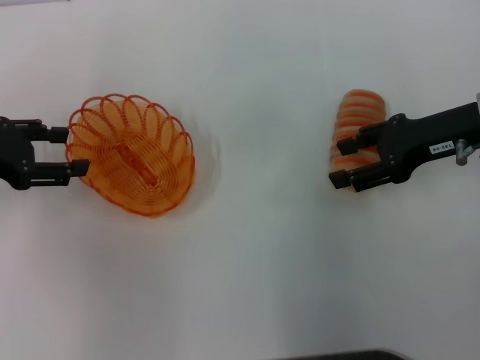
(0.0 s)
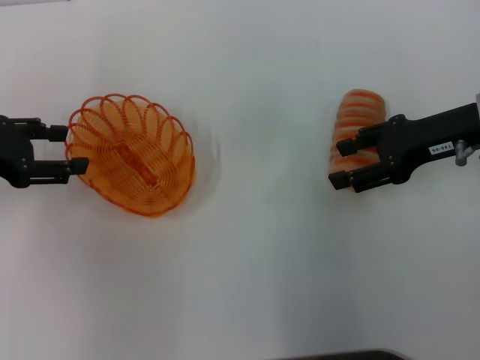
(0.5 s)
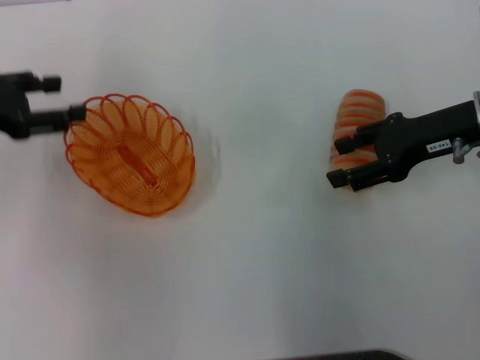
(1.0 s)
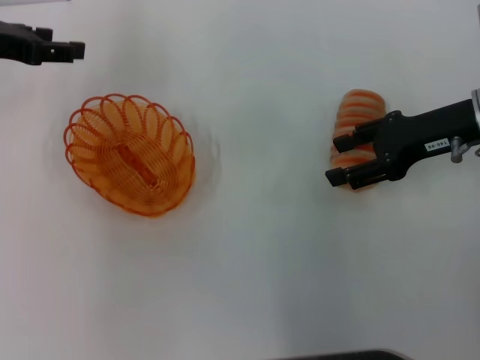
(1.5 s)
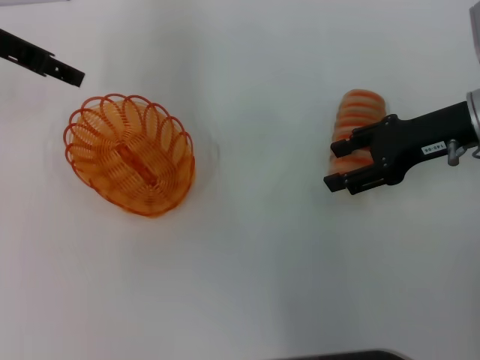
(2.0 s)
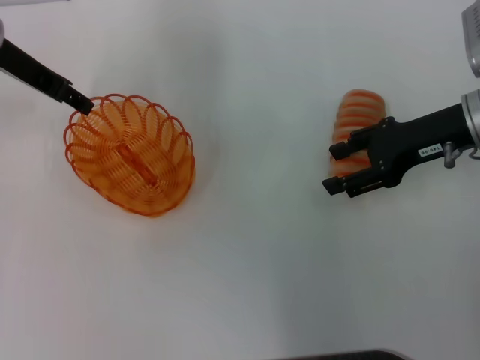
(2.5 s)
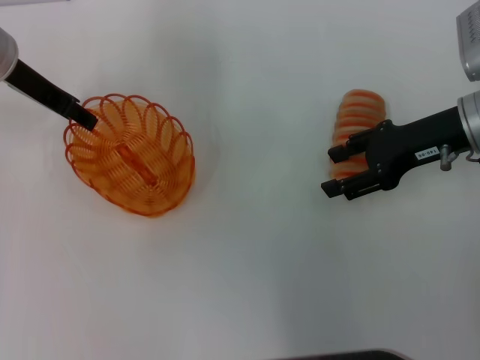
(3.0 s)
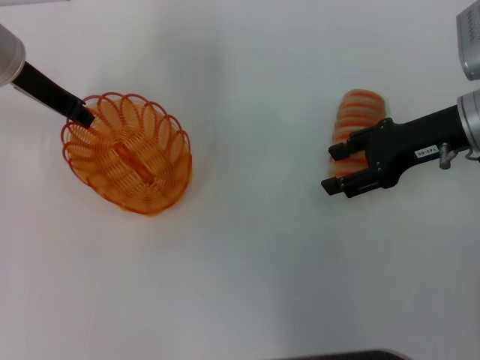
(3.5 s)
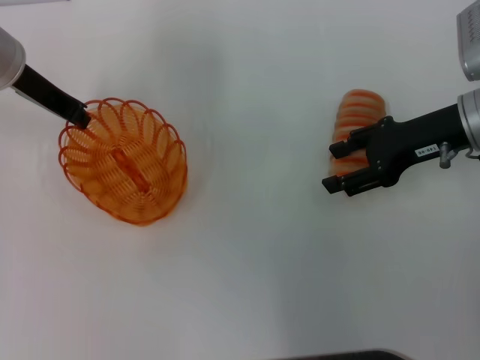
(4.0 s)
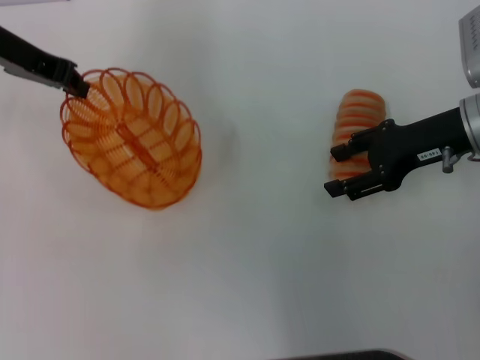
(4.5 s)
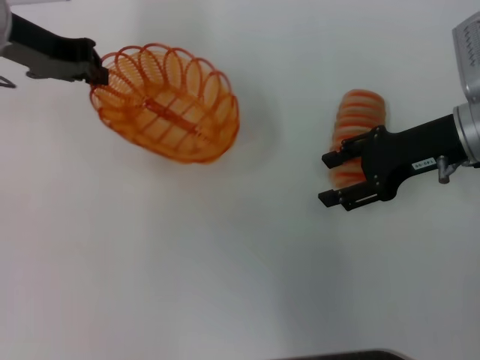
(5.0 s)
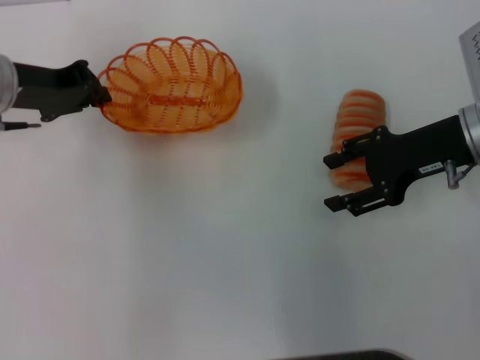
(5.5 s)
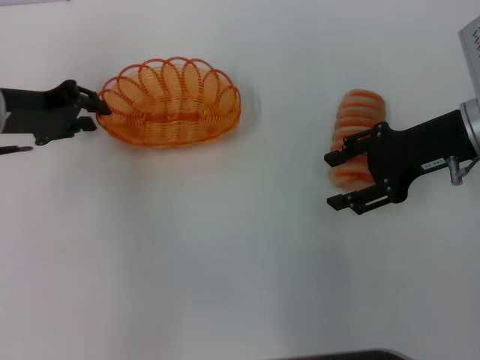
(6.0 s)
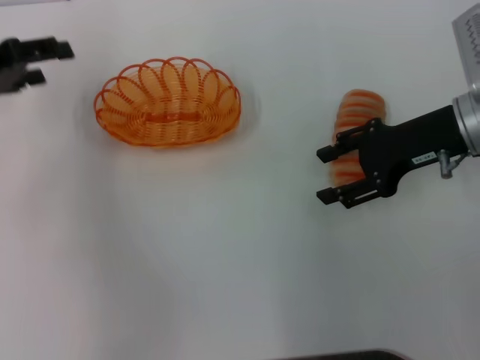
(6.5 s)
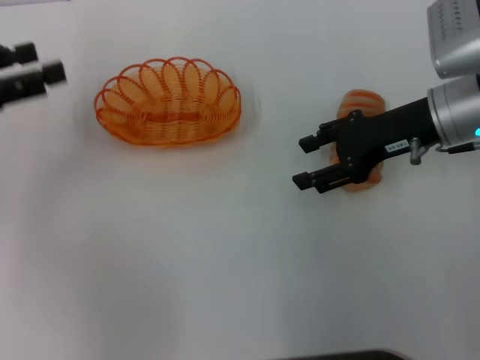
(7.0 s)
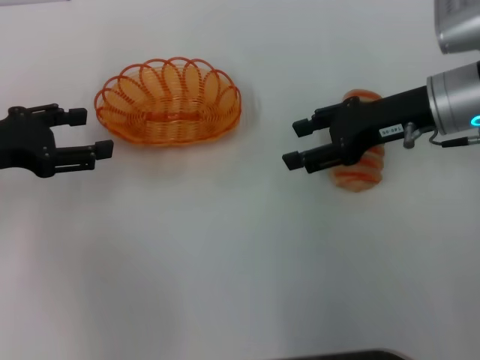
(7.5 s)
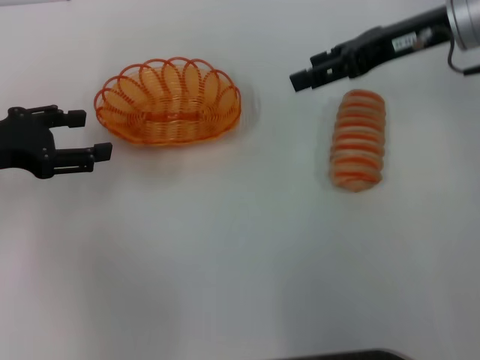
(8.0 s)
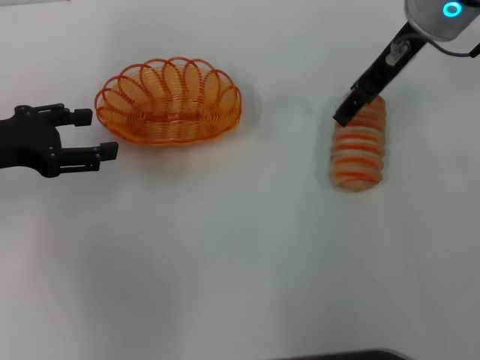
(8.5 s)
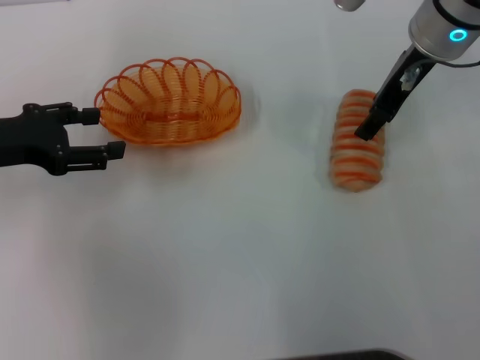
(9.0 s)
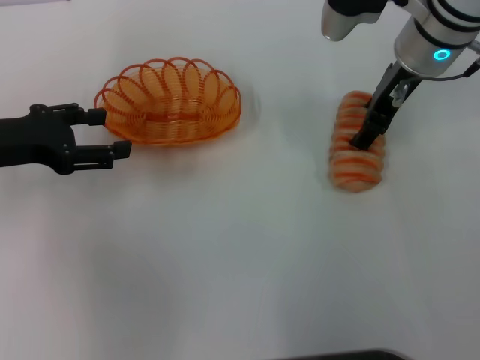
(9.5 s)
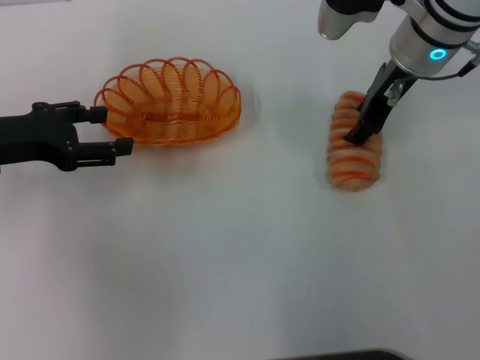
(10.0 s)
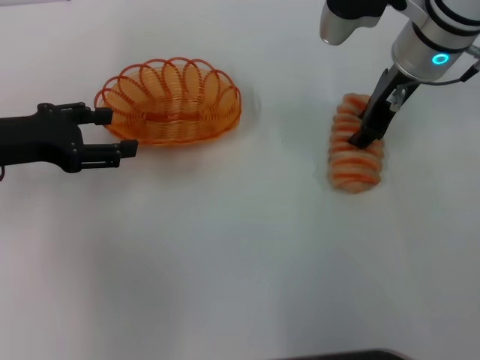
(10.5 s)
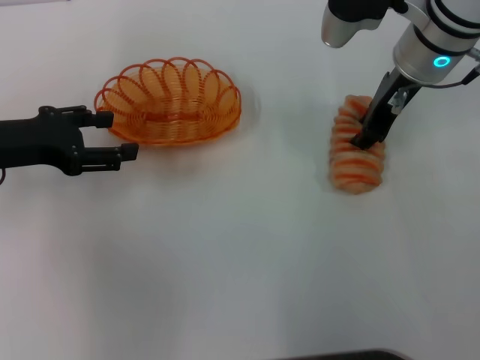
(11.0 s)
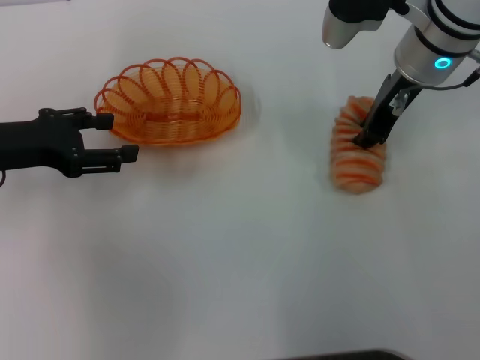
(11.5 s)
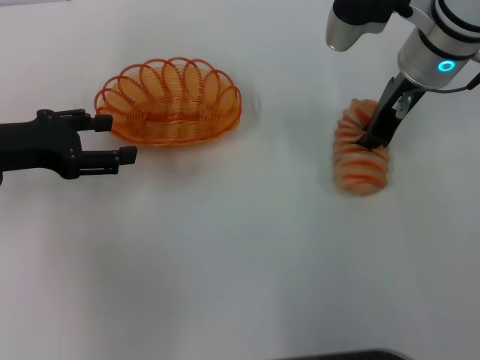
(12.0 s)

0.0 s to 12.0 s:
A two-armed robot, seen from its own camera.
Step, 0.0 to 4.5 s: Pick up the basket with the left gripper.
Step, 5.0 to 6.0 s: Place the basket in the center of view with the left gripper.
0.0 to 2.0 s: The left gripper shifts about 15 cm forward, upward and to the right.
2.0 to 4.0 s: The left gripper changes place by roughly 5 cm, and closes.
4.0 to 6.0 s: The left gripper shifts approximately 5 cm backward.
6.0 to 8.0 s: The right gripper heads upward and forward, covering about 10 cm. The left gripper is displaced backward by roughly 5 cm, and opens.
8.0 to 10.0 s: The right gripper travels to the left by some 5 cm.
10.0 to 12.0 s: The right gripper closes up.

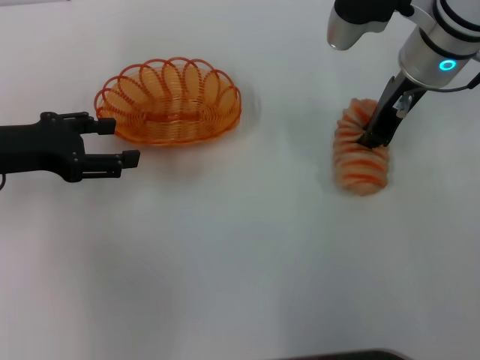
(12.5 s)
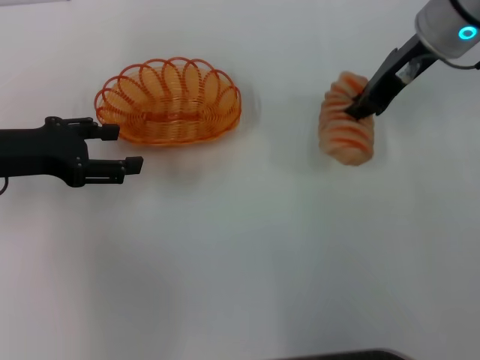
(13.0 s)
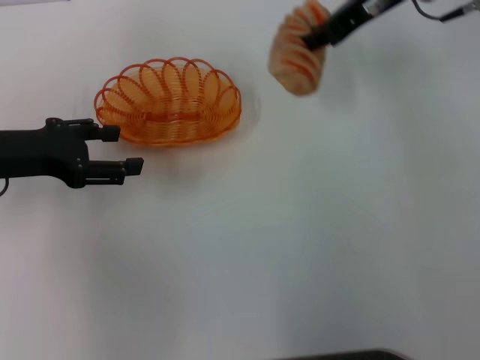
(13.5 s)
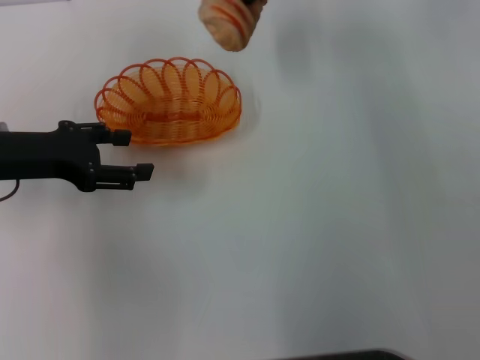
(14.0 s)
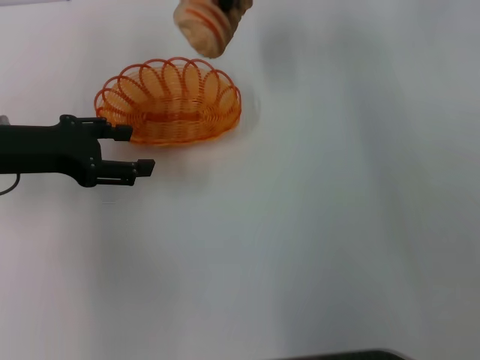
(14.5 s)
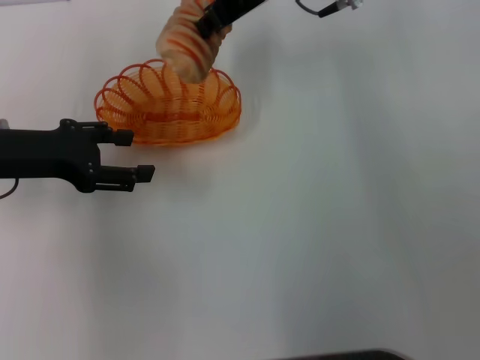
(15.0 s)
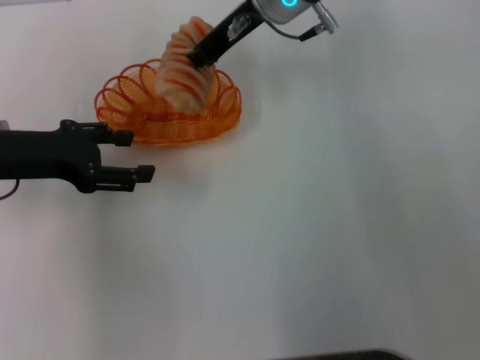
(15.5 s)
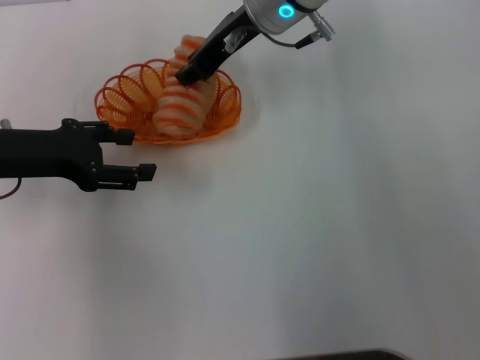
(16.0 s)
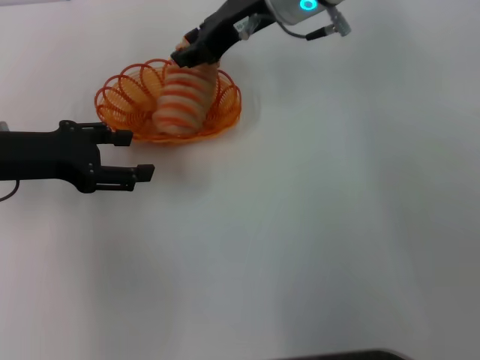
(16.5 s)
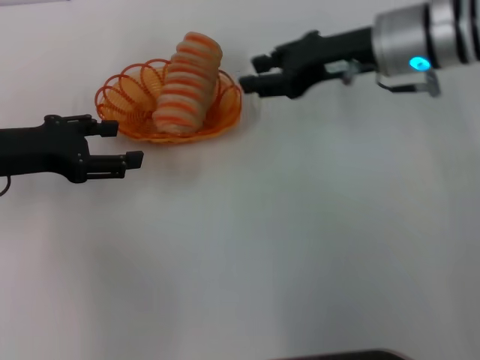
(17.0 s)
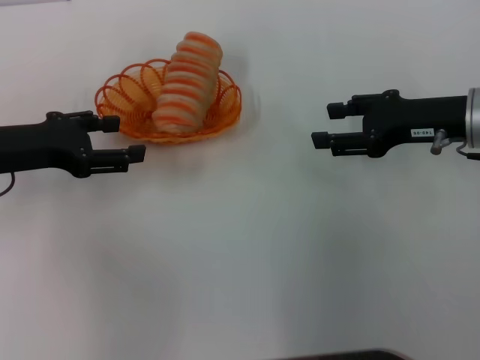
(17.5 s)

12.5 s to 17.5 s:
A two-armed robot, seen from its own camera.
Step, 13.0 to 16.5 s: Place the long bread into the basket with the right gripper.
12.5 to 15.0 s: The right gripper heads to the left and upward, covering approximately 10 cm.
15.0 to 17.5 s: The right gripper heads to the right, backward and downward, covering some 25 cm, and opens its fingers.

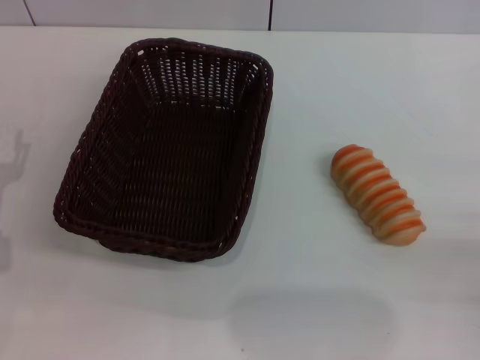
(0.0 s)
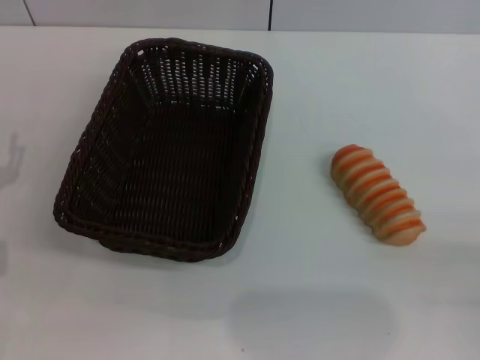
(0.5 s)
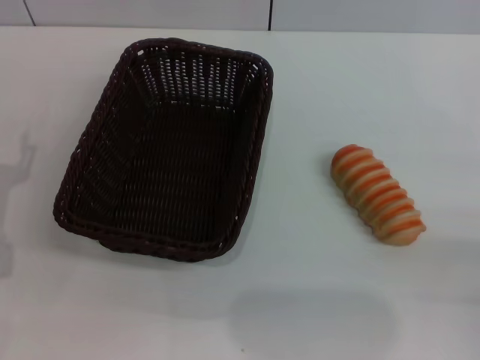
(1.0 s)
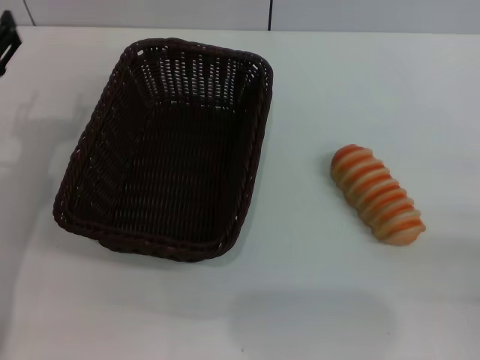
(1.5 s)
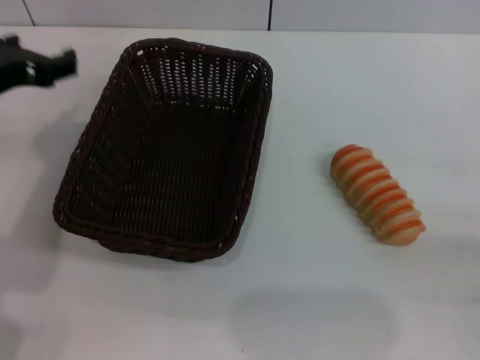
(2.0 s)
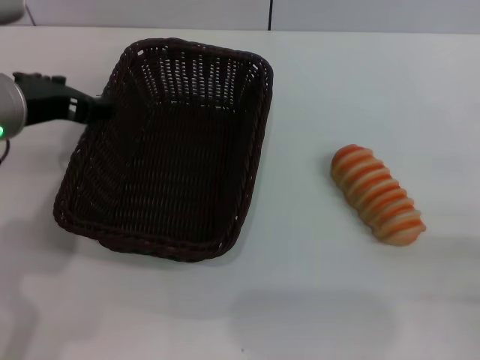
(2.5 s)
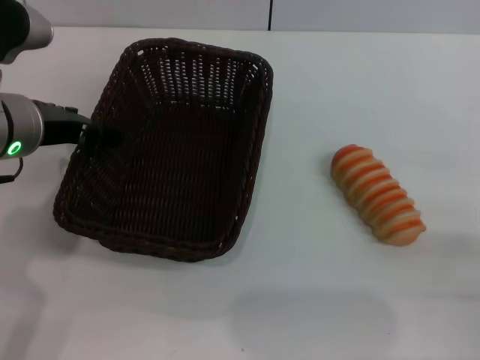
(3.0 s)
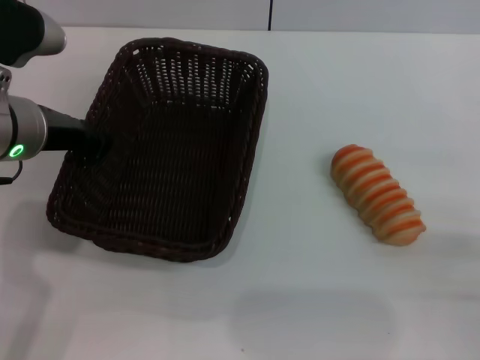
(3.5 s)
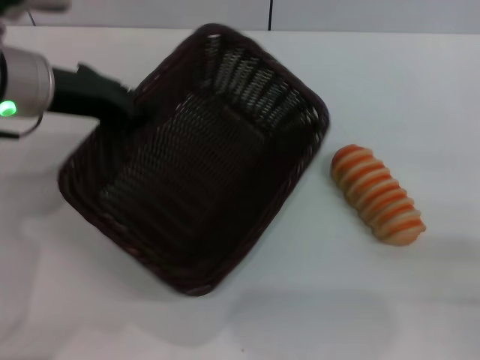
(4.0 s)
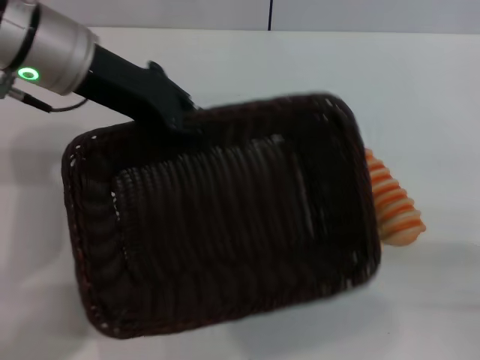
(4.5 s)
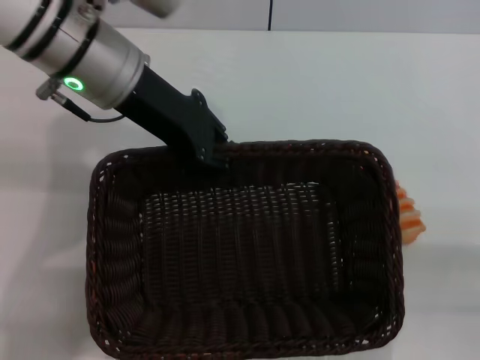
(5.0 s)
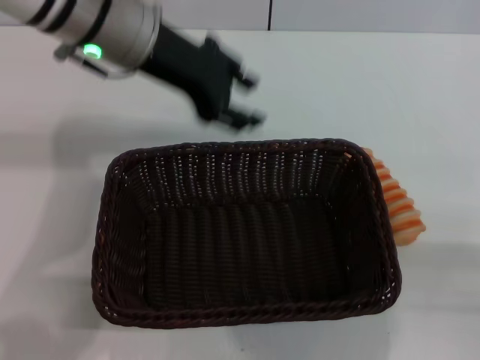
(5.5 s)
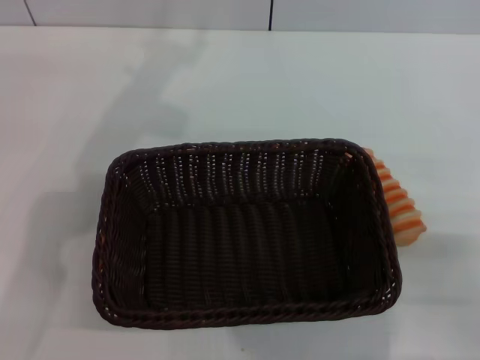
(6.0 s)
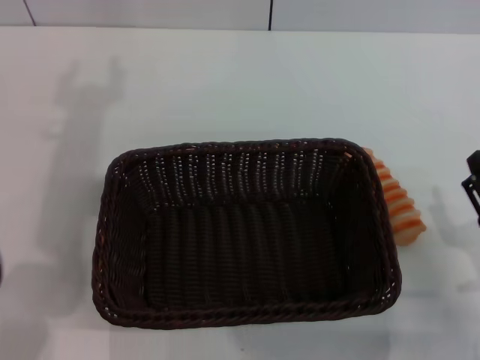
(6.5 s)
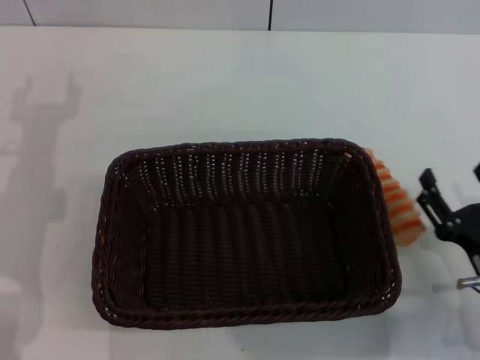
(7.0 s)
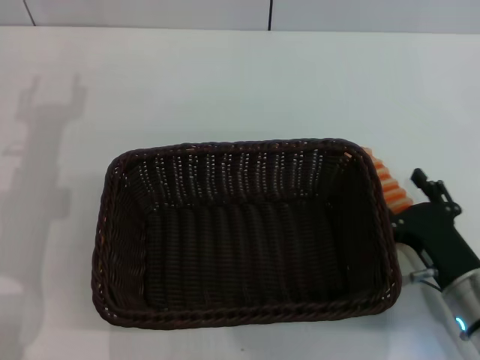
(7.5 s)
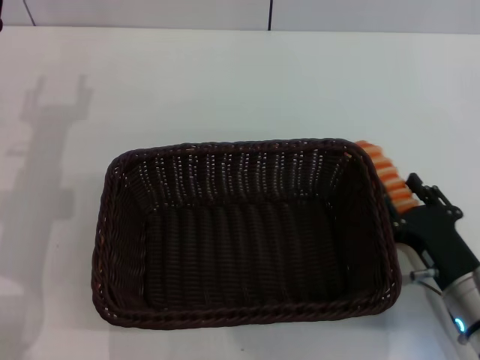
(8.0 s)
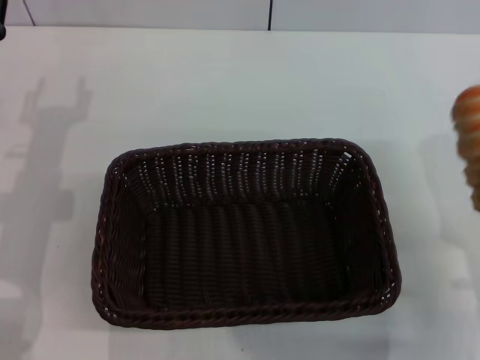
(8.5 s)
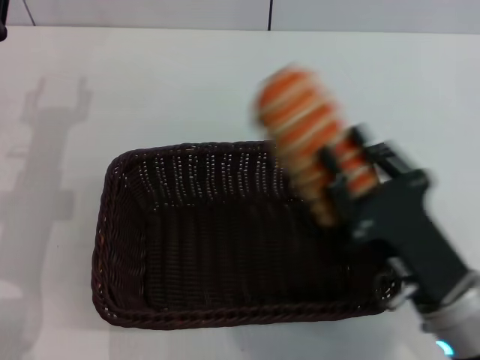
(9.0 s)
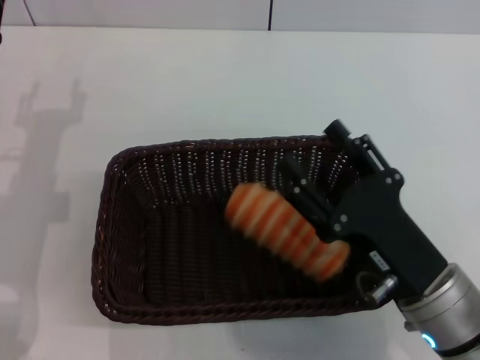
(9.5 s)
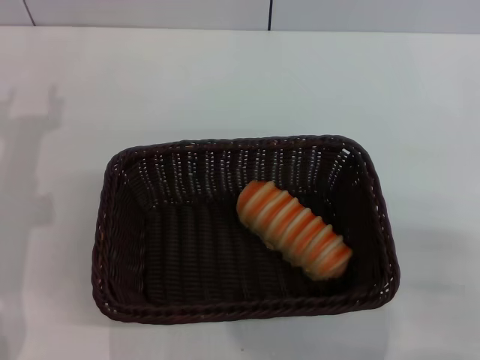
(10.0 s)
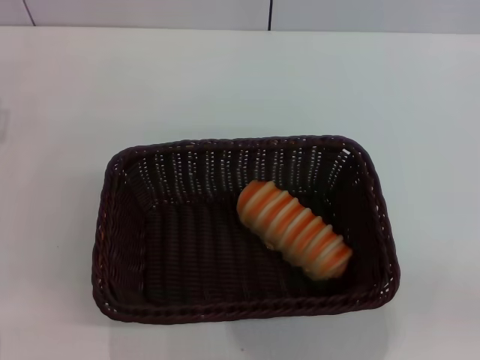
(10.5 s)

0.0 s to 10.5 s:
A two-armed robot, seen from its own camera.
Step, 0.0 to 4.0 s: Pick up the dark basket with the left gripper.
Step, 4.5 to 5.5 s: Place the dark basket in the center of view with the left gripper.
Step, 6.0 to 8.5 s: Pick up the long bread with the right gripper.
Step, 9.0 to 9.5 s: Place the long bread into the dark basket with the right gripper.
0.0 to 2.0 s: The left gripper goes about 20 cm upward and to the right.
2.0 to 4.0 s: The left gripper closes its fingers.
4.0 to 6.5 s: The right gripper goes about 5 cm to the left, while the left gripper reaches about 5 cm to the right, then returns, and opens.
6.5 to 8.5 s: The right gripper closes up, while the left gripper heads downward, covering about 10 cm.
8.5 to 10.5 s: The right gripper goes approximately 10 cm to the right and backward, and opens its fingers. The left gripper goes approximately 5 cm to the left.
